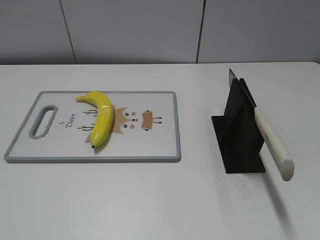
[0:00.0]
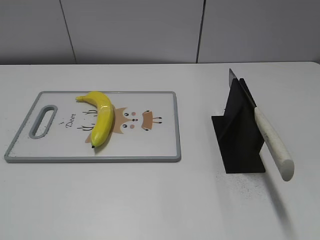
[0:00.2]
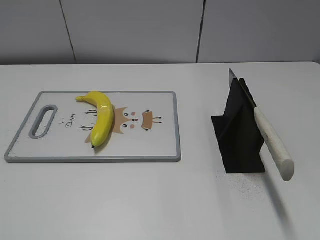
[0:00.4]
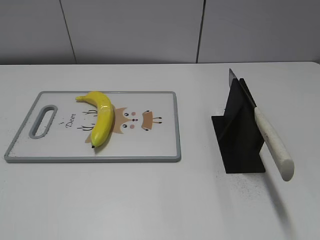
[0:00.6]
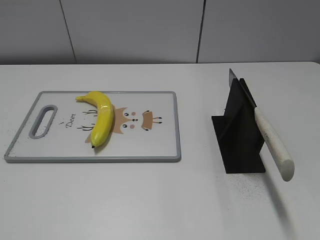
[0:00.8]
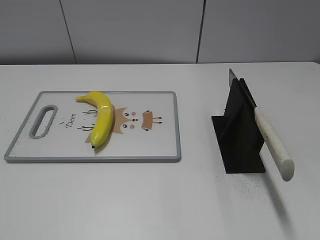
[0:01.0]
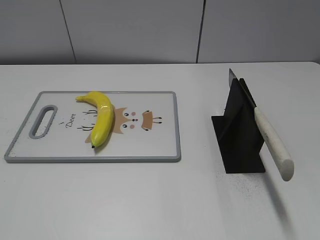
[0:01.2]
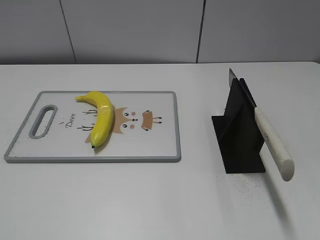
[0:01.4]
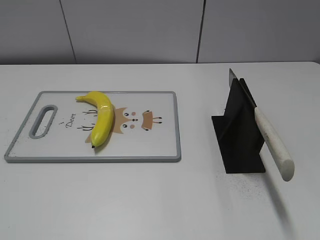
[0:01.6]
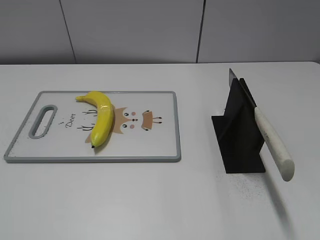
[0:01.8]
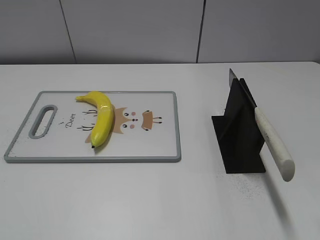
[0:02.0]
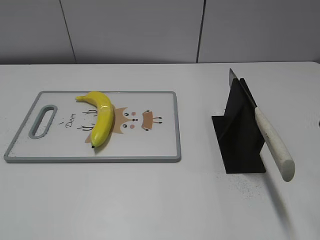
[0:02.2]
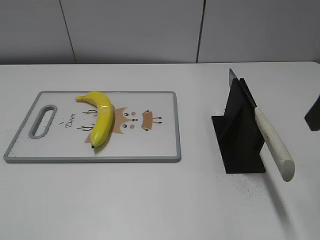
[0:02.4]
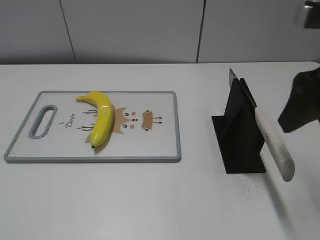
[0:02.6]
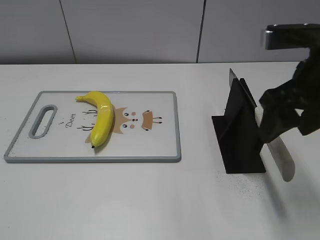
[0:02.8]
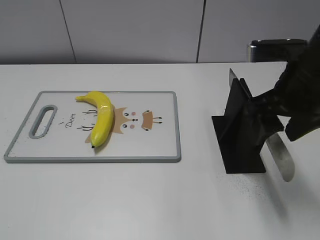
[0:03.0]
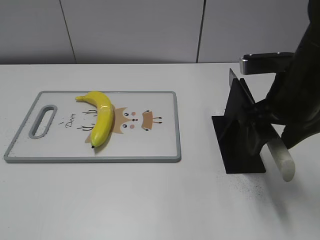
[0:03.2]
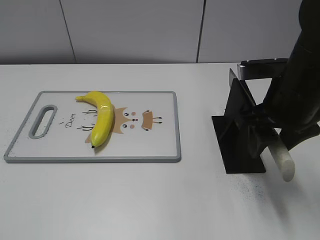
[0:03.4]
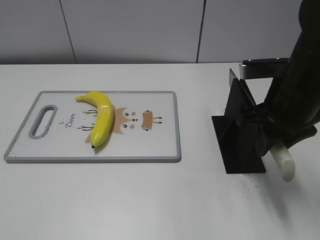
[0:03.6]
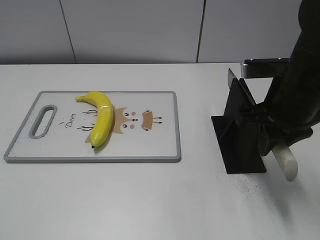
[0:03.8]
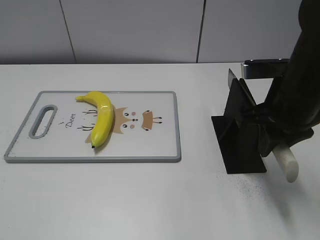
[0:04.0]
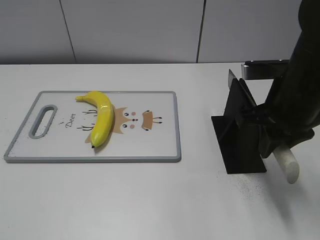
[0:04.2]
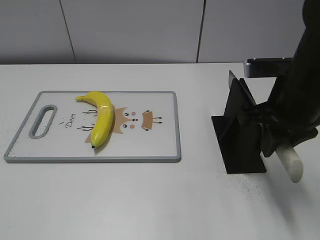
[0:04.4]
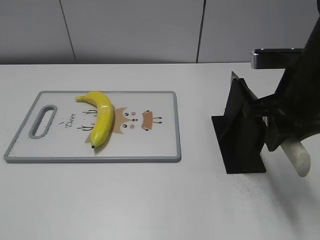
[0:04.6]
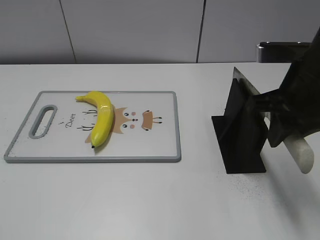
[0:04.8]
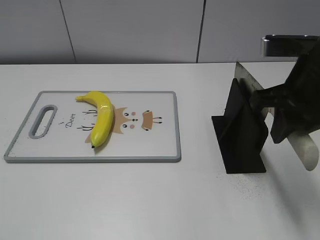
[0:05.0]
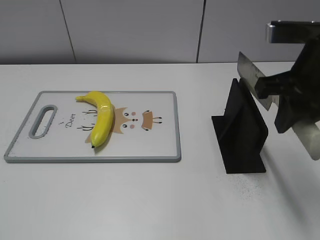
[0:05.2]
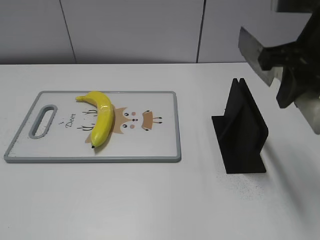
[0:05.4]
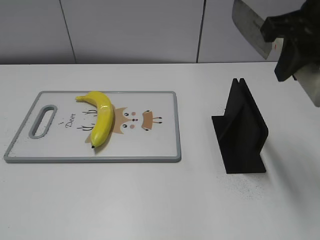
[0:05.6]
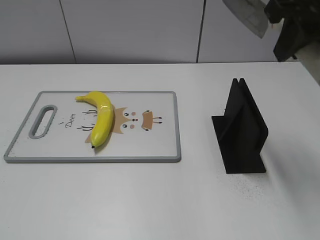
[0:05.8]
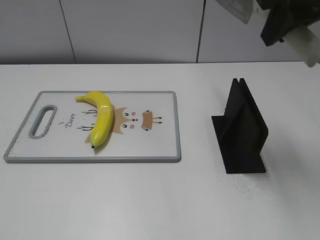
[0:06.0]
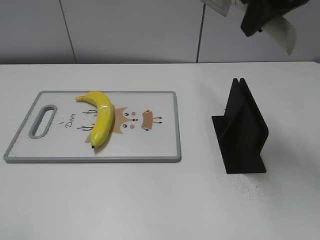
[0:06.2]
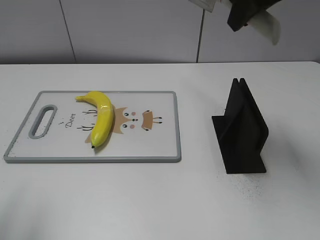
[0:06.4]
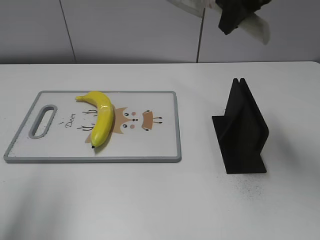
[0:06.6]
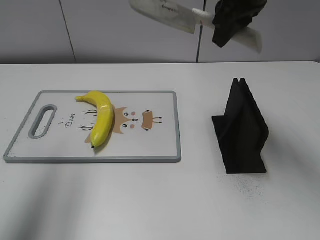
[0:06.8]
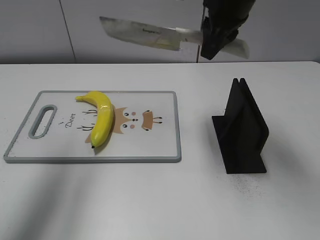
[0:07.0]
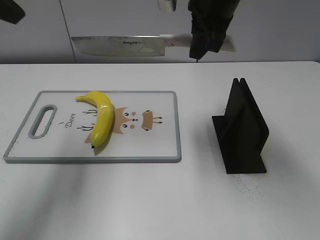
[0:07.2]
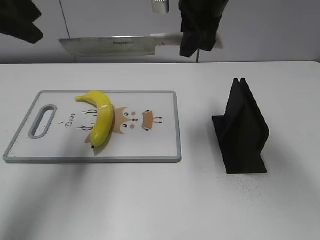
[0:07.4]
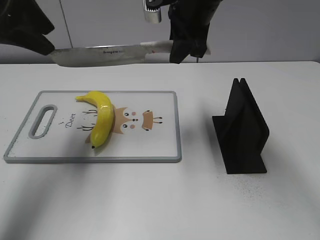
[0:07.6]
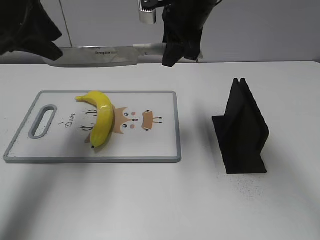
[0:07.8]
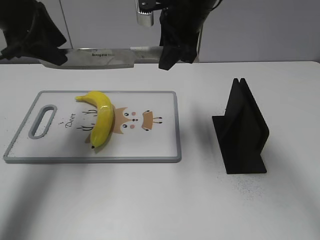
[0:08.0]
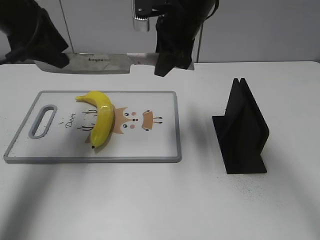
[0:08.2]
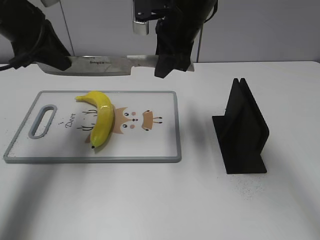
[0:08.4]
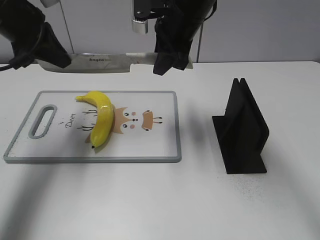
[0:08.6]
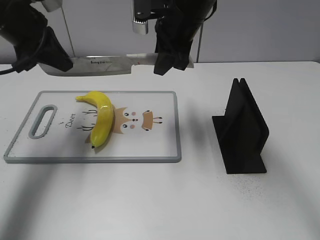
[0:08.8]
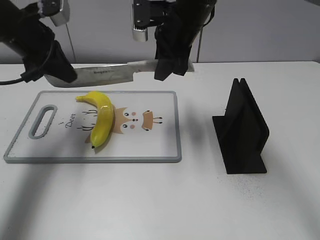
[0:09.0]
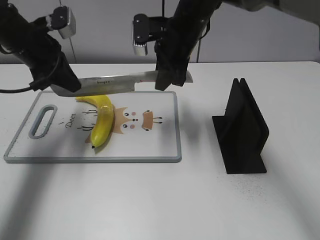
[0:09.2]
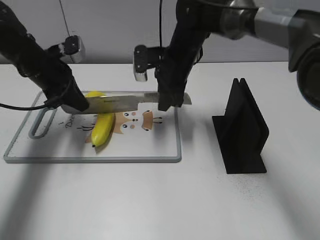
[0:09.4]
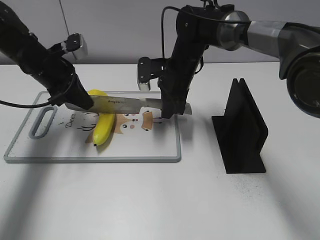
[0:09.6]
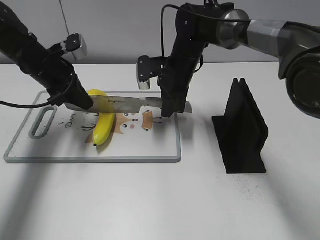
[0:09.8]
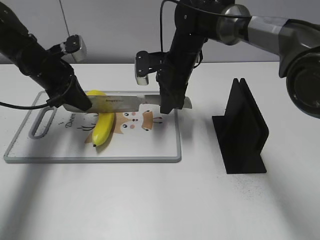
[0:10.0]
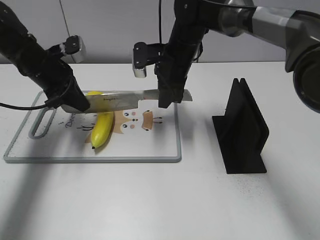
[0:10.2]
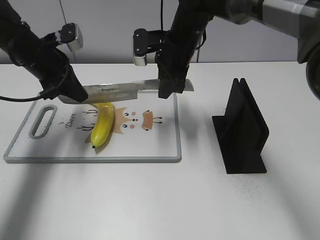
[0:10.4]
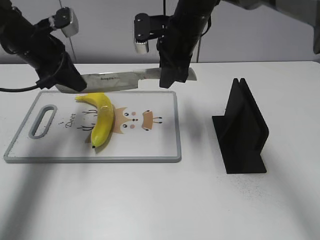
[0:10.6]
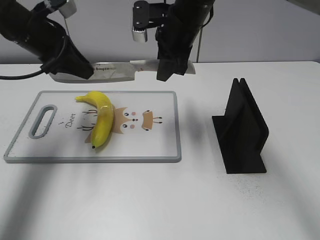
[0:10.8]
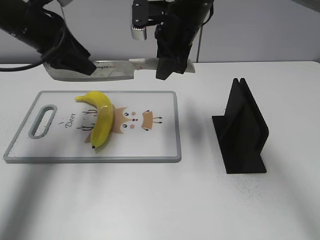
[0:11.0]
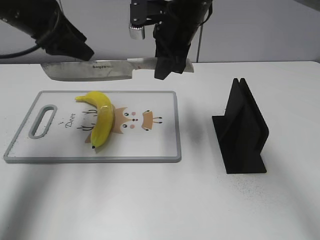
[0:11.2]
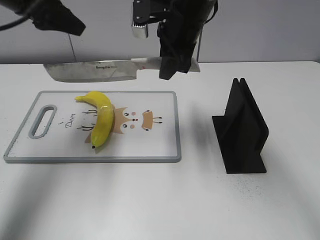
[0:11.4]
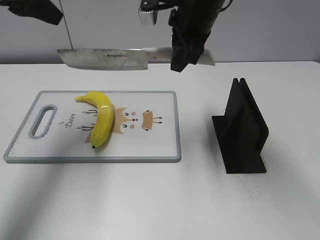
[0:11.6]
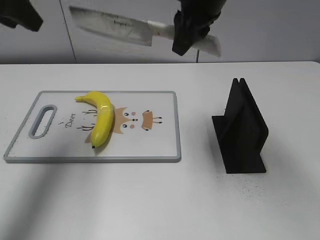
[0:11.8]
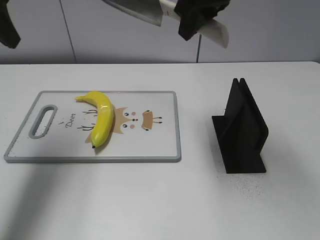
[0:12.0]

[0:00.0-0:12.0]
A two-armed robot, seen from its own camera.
Task of the whole recording: cut plastic banana.
Step, 0:00.0 to 0:04.8: Grab the knife handle with your right hand.
Step, 0:05.0 to 0:10.6: Hold the blade with your left hand.
0:01.6 to 0:03.0: The right gripper shifts roughly 25 cm forward, to the left and downward.
0:03.0 to 0:04.4: The right gripper closes up.
0:04.4 to 0:06.0: The right gripper goes roughly 15 cm upward.
0:06.0 to 0:07.6: The right gripper is displaced forward, to the left and downward by about 20 cm; the left gripper goes approximately 30 cm forward.
0:07.6 to 0:09.0: The left gripper shifts some 10 cm downward, and closes.
0:09.0 to 0:10.4: The left gripper shifts some 5 cm downward.
0:10.4 to 0:12.0: Both grippers move upward and backward, about 20 cm. The left gripper opens.

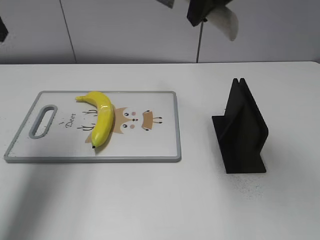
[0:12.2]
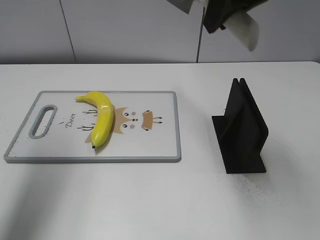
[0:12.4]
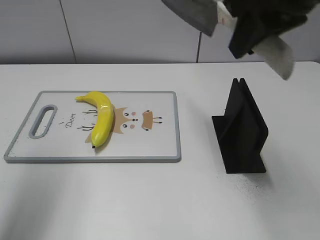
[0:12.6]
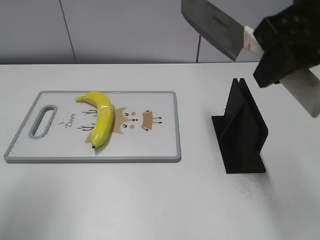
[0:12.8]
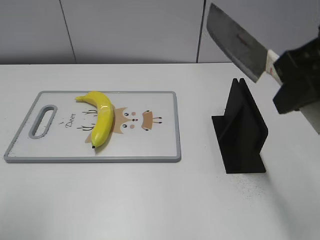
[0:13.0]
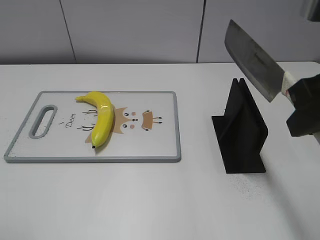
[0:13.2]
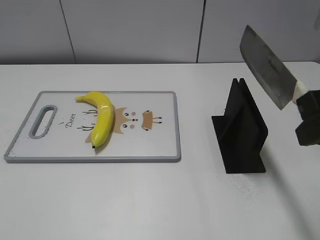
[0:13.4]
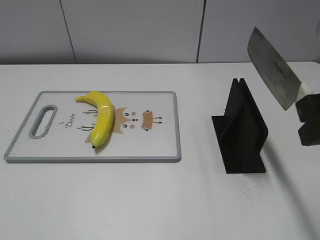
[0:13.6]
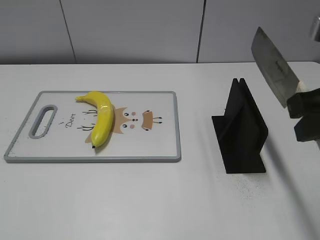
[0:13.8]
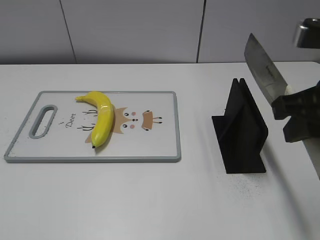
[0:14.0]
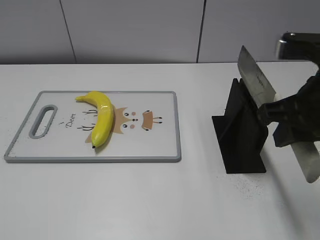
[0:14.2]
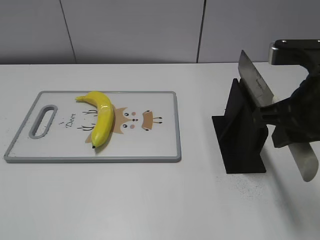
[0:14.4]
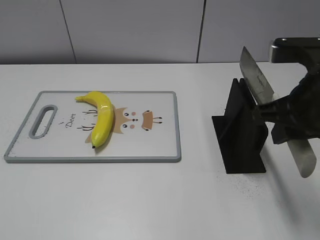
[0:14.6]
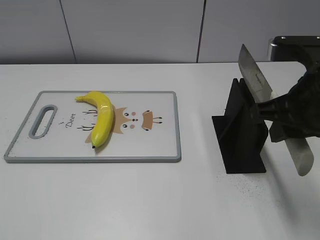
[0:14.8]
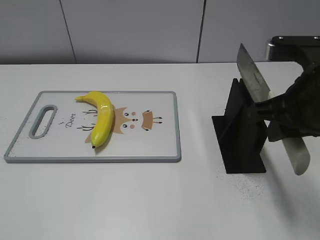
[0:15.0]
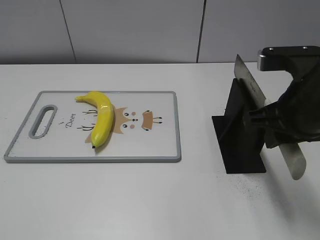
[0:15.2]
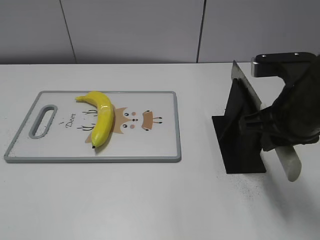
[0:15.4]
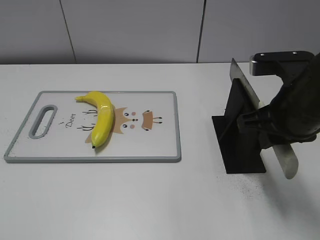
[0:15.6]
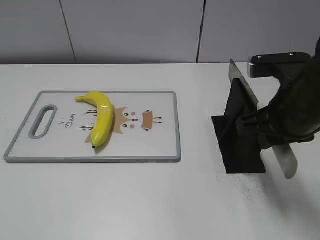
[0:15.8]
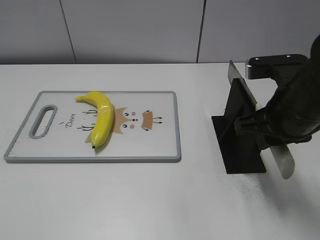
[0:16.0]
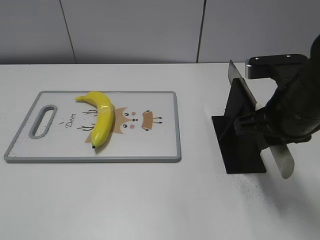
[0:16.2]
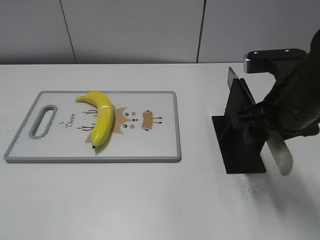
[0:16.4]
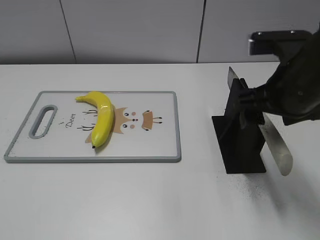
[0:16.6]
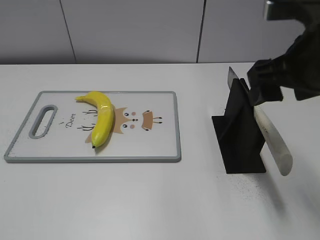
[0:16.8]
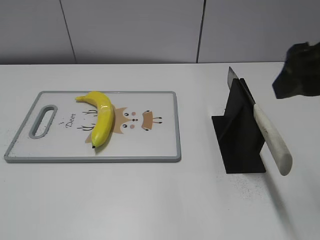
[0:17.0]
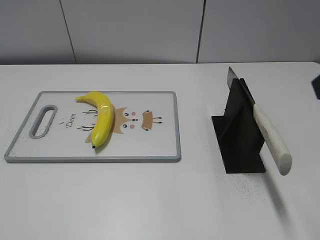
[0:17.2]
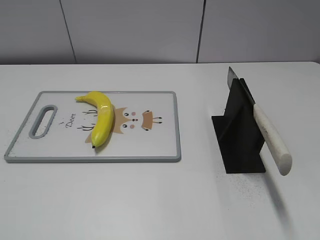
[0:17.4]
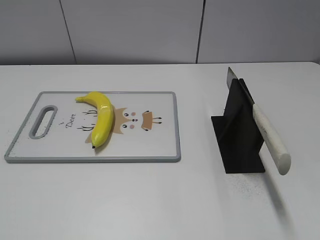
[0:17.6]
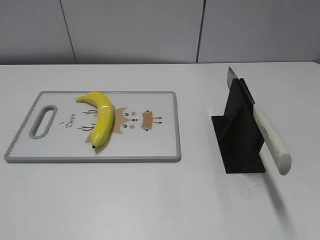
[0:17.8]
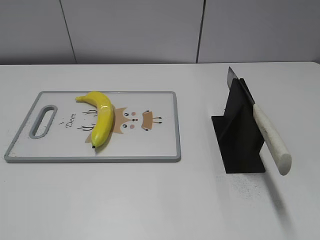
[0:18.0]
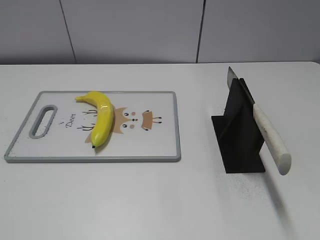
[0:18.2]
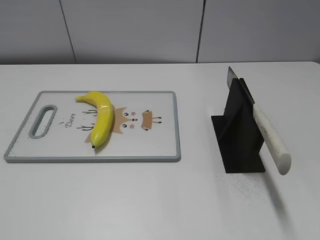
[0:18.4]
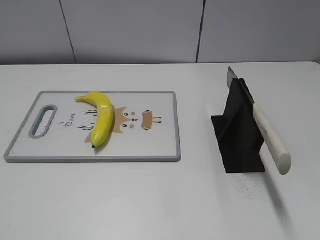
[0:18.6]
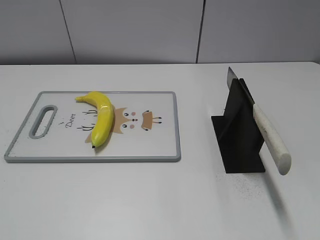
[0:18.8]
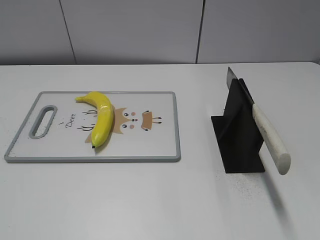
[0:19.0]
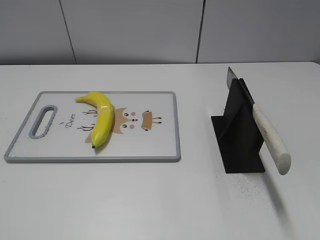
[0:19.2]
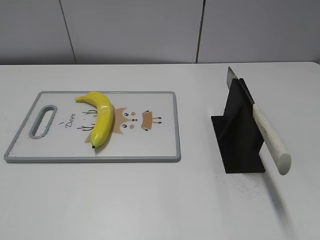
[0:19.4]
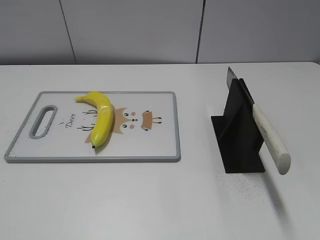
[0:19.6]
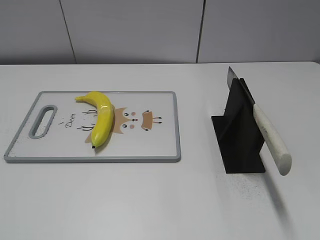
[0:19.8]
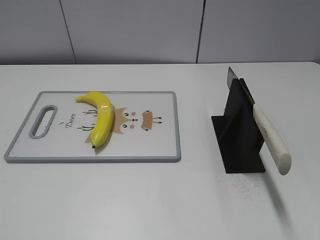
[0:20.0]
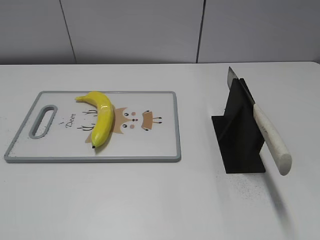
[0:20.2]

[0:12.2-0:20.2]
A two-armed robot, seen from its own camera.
Task of the whole recording: cut plastic banana.
Step, 0:12.6 to 0:13.4: Lift the knife with your right hand.
Step, 0:13.6 to 0:20.2: Place the knife on the storage rack with your right hand.
0:12.2 to 0:13.8: The right gripper heads backward, to the right and downward, covering roughly 20 cm. Meanwhile the left gripper goes roughly 30 cm backward.
0:13.8 to 0:15.4: The right gripper shifts some 10 cm downward and forward.
0:15.4 to 0:17.0: The right gripper travels upward by roughly 10 cm, and opens its fingers.
0:17.0 to 0:18.6: The right gripper goes some 25 cm backward and to the right.
